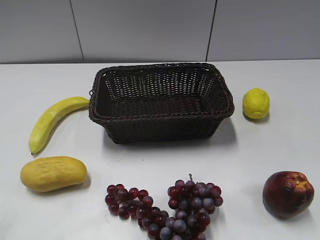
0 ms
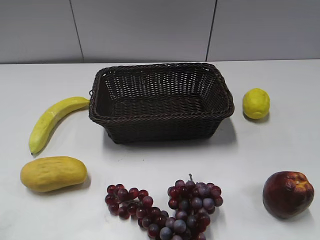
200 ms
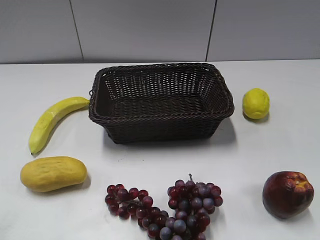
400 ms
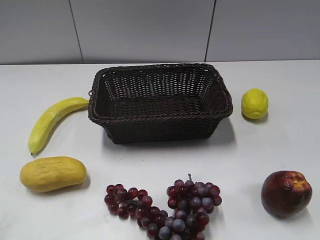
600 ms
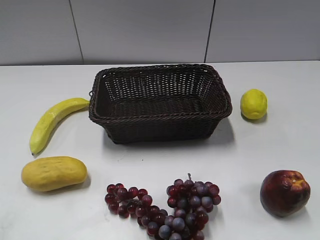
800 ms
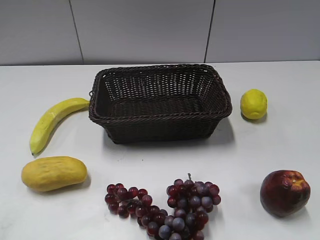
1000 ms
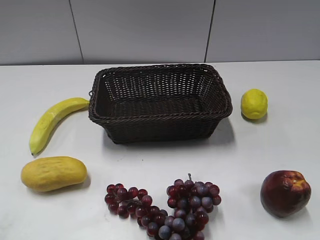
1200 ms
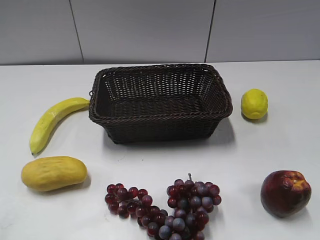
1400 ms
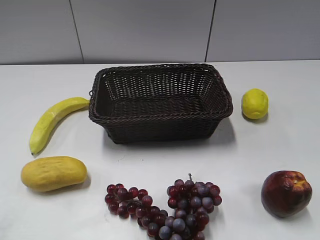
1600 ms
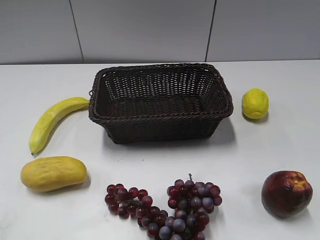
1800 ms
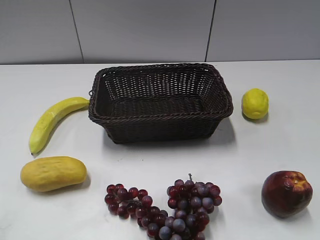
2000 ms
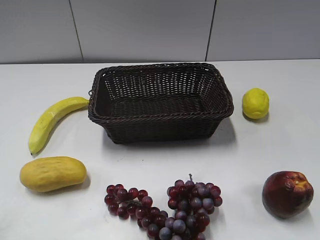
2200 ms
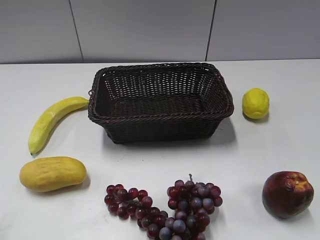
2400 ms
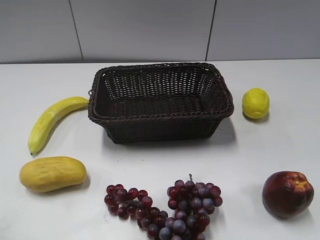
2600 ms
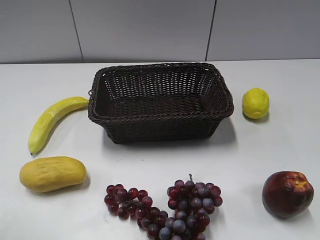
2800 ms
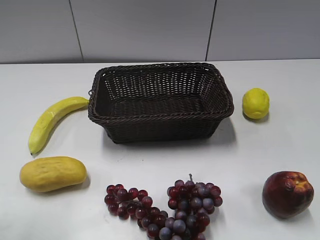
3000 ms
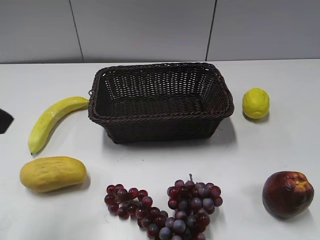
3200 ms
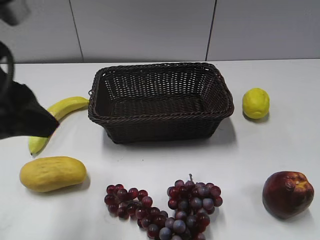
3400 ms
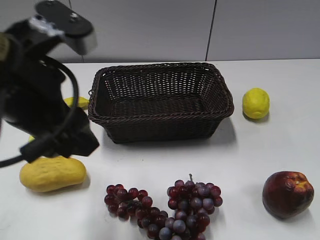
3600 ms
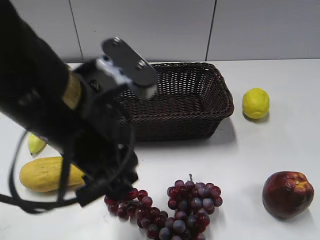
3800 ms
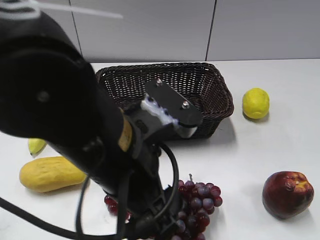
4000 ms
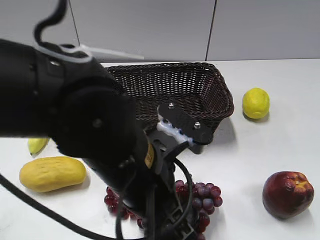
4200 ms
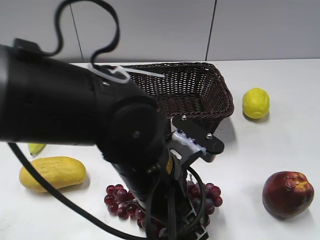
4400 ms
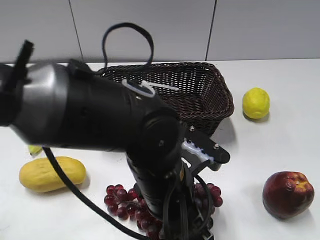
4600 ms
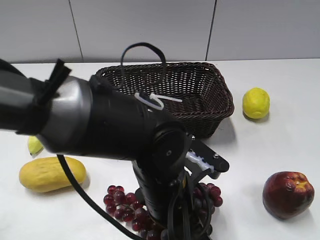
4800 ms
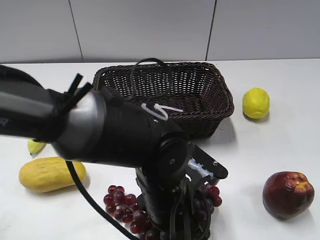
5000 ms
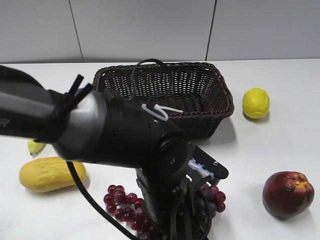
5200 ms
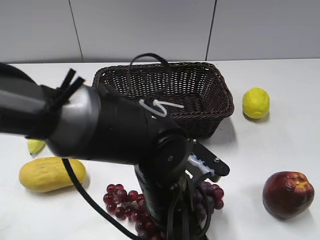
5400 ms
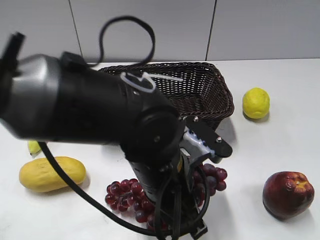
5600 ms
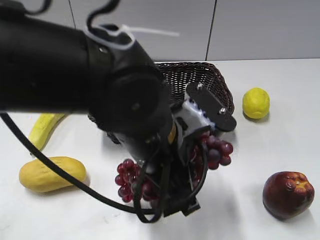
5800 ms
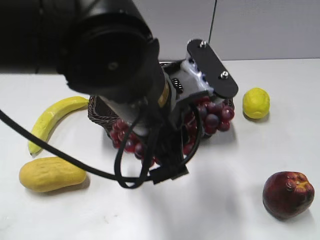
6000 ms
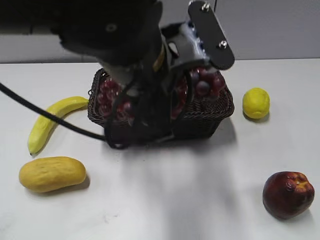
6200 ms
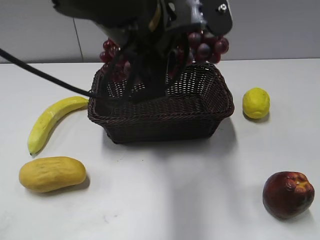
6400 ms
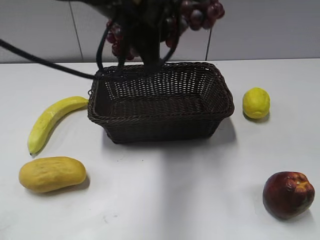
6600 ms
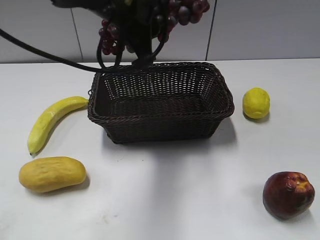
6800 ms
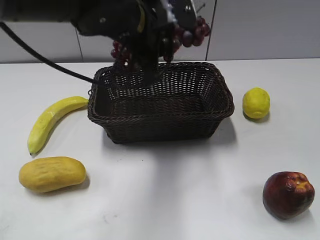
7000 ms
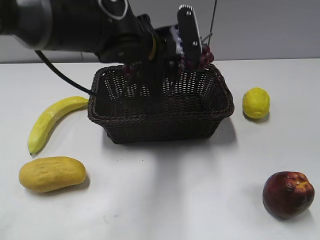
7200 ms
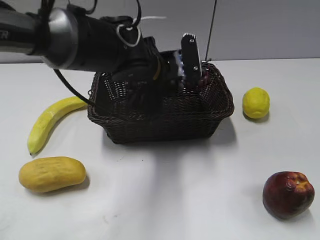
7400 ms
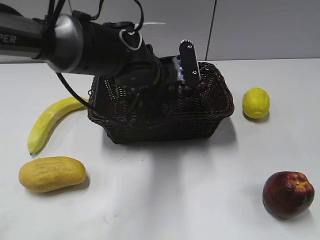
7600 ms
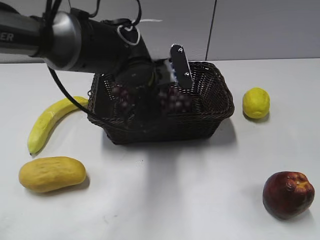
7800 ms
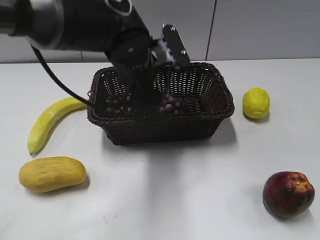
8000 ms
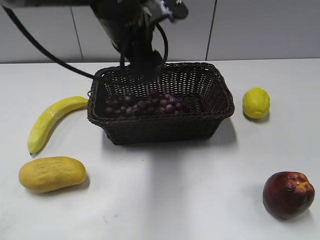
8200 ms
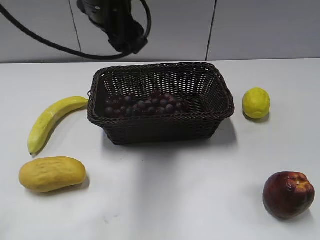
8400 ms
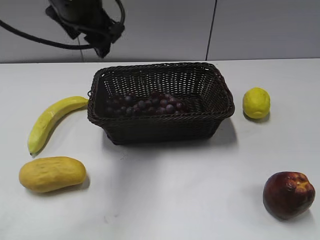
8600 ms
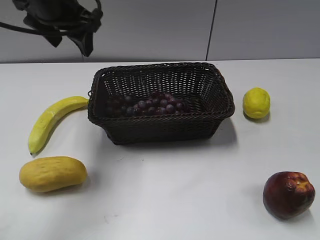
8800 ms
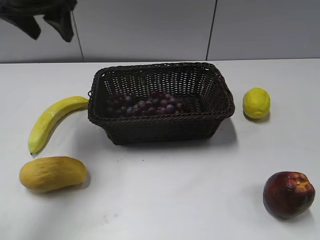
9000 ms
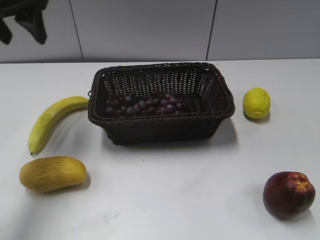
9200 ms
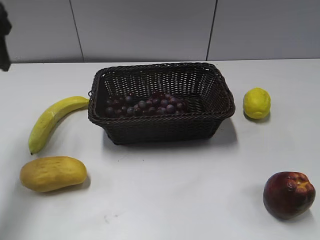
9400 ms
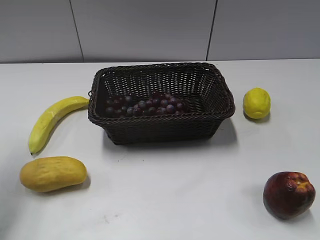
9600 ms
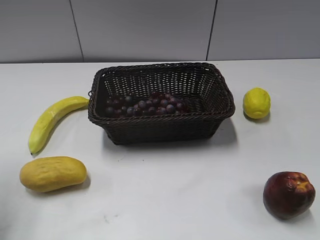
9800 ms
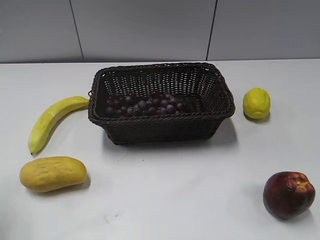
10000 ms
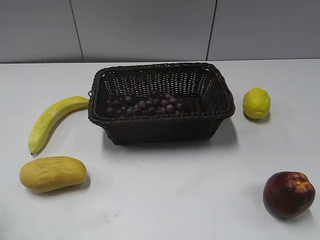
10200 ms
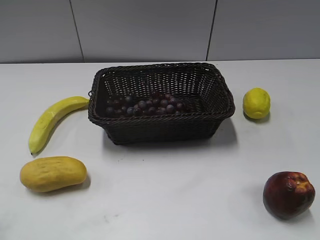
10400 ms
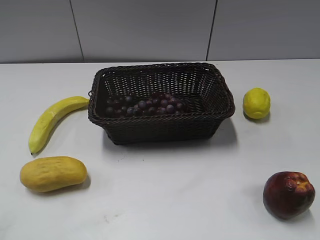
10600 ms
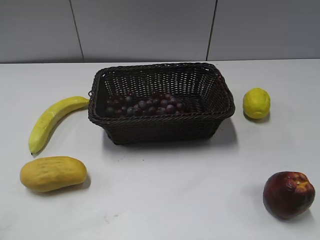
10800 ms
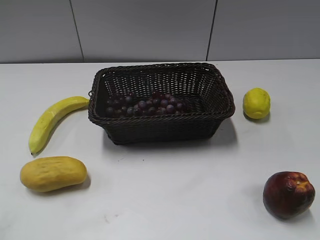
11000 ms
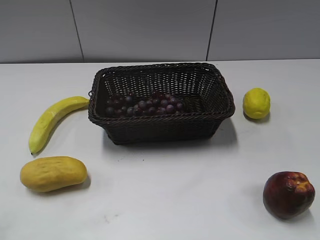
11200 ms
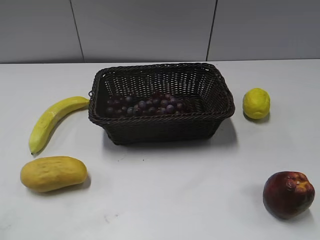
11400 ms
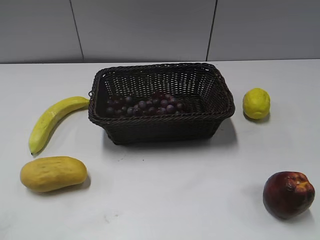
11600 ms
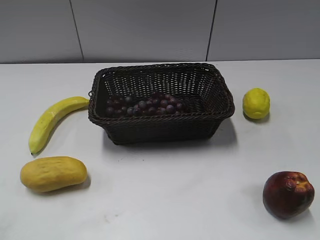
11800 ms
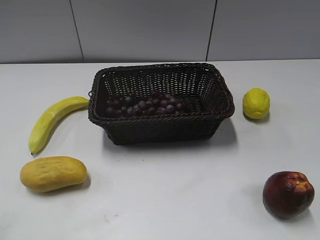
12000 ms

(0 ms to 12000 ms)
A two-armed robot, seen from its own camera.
Step, 3200 ms - 5200 ms: Grasp the grape with left gripper.
Step, 5400 ms - 8000 ms: Place the grape in the basket with left gripper.
1600 ms - 3000 ms: The left gripper goes some 10 cm forward.
3000 ms - 4400 ms: The left gripper goes approximately 30 cm to the right and downward.
4400 ms - 6000 ms: The left gripper moves upward, about 10 cm, and closes up.
6000 ms - 7600 ms: The left gripper goes roughly 20 cm forward and downward.
7600 ms - 9000 ms: The left gripper shifts some 25 cm to the left and upward, and opens.
9000 ms - 10400 ms: The left gripper goes some 30 cm backward and to the left.
